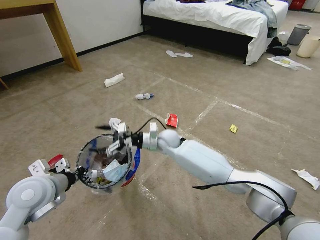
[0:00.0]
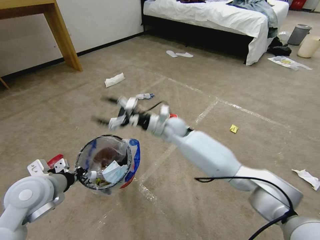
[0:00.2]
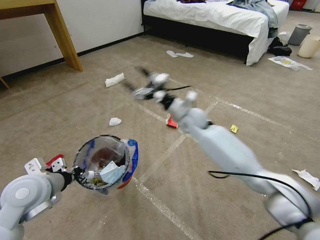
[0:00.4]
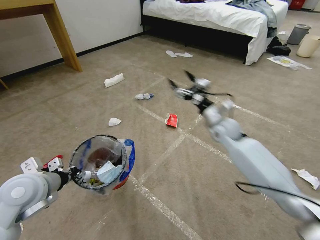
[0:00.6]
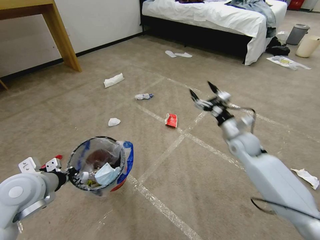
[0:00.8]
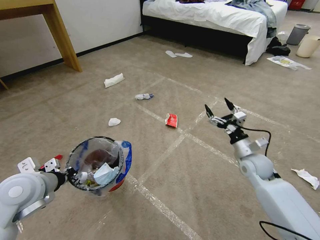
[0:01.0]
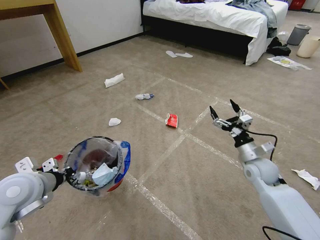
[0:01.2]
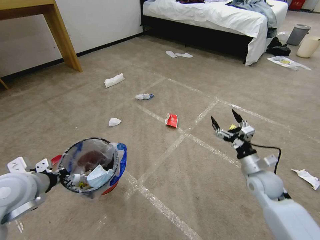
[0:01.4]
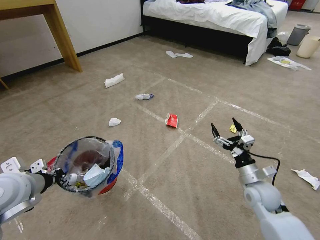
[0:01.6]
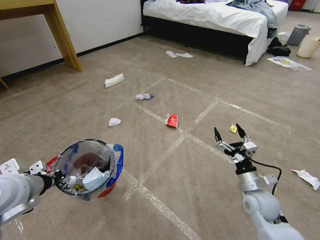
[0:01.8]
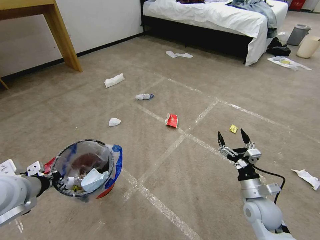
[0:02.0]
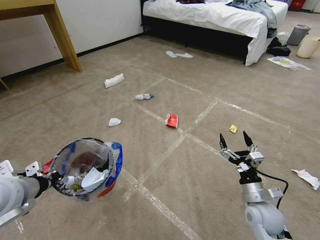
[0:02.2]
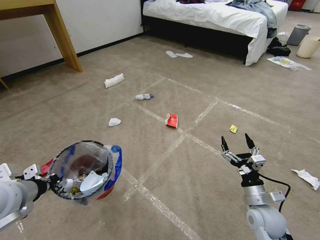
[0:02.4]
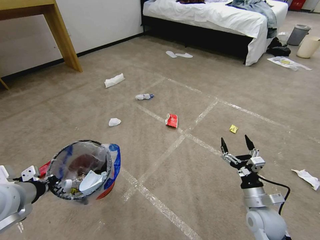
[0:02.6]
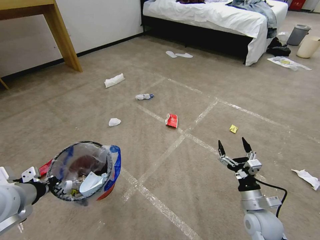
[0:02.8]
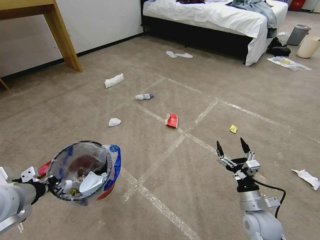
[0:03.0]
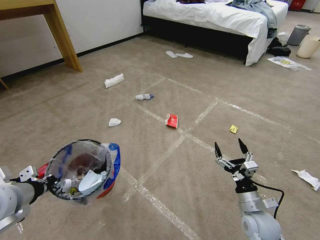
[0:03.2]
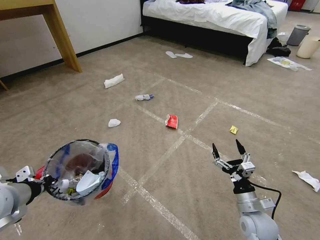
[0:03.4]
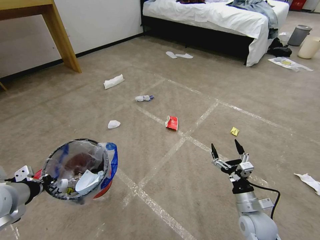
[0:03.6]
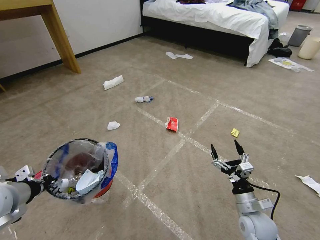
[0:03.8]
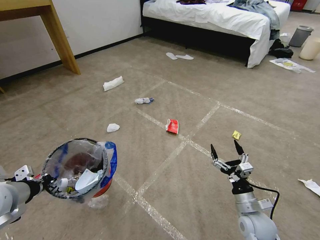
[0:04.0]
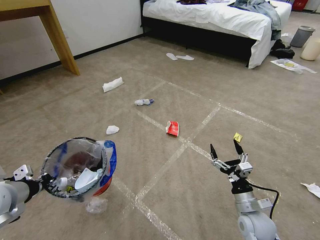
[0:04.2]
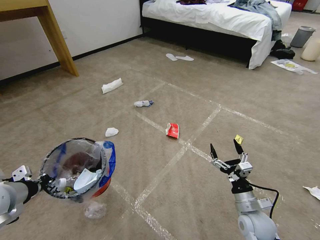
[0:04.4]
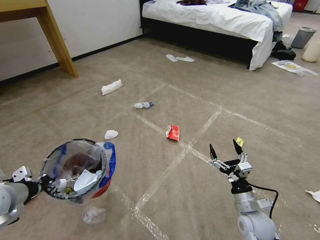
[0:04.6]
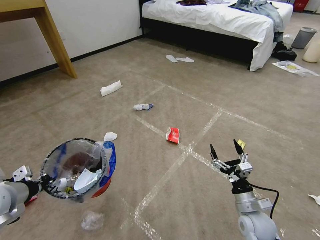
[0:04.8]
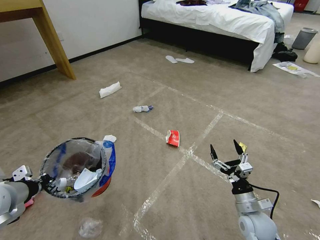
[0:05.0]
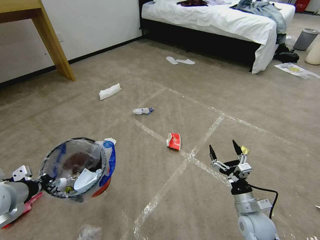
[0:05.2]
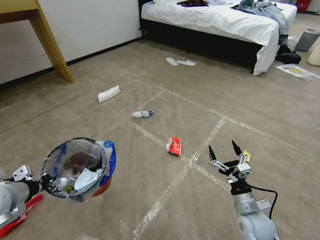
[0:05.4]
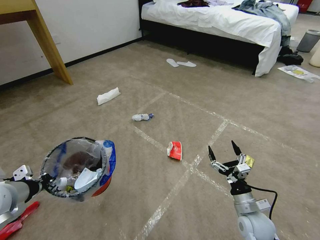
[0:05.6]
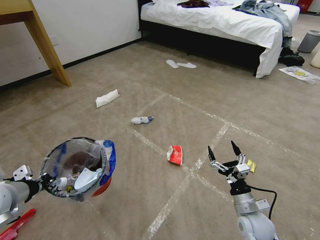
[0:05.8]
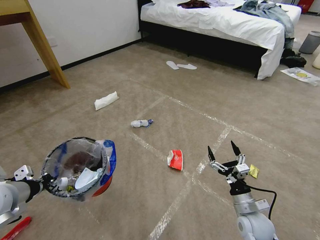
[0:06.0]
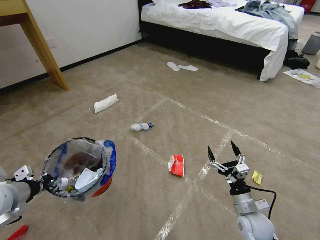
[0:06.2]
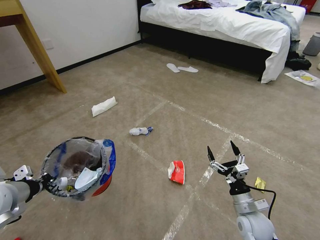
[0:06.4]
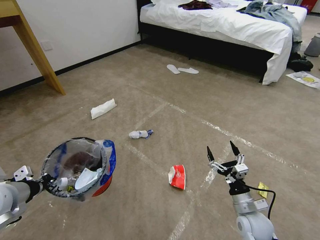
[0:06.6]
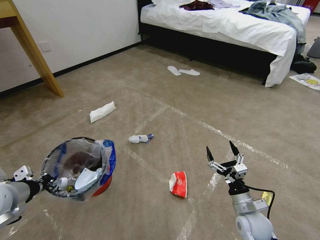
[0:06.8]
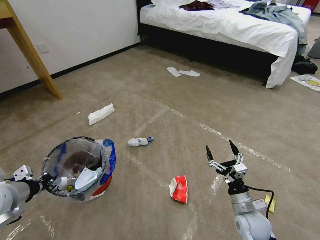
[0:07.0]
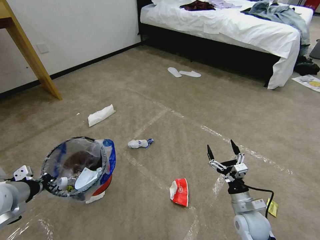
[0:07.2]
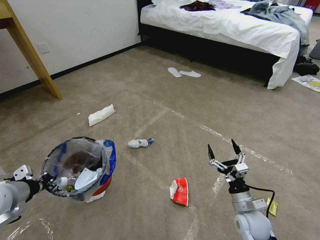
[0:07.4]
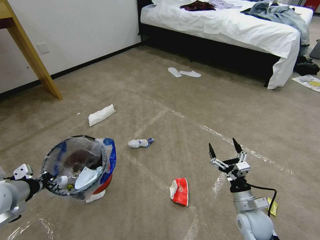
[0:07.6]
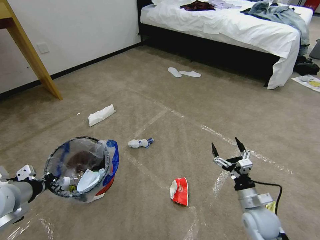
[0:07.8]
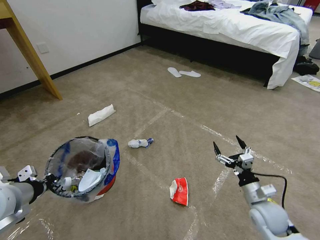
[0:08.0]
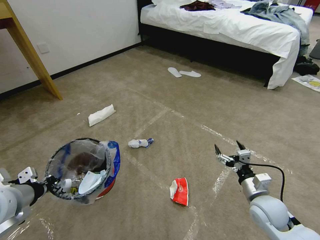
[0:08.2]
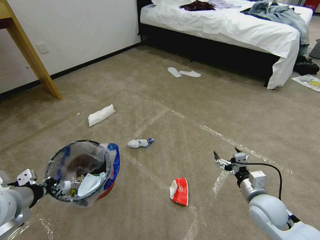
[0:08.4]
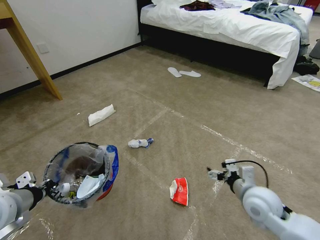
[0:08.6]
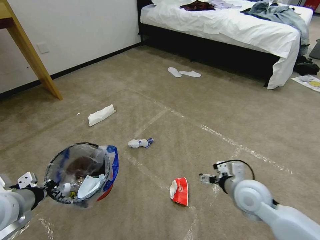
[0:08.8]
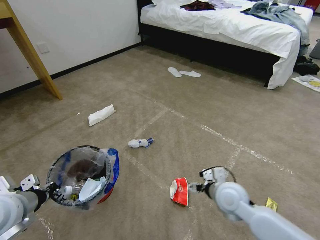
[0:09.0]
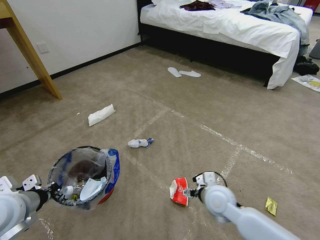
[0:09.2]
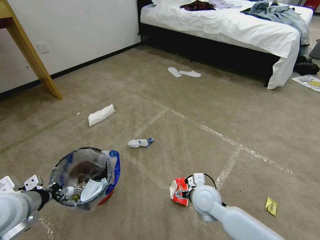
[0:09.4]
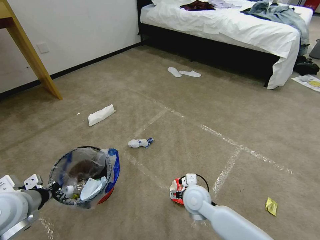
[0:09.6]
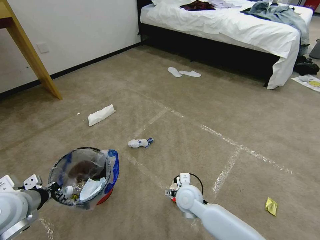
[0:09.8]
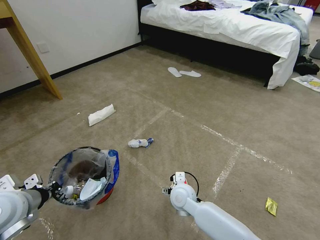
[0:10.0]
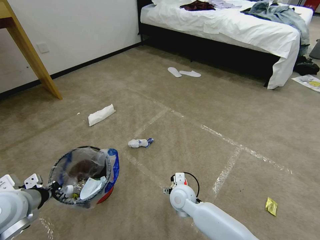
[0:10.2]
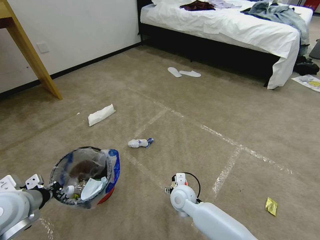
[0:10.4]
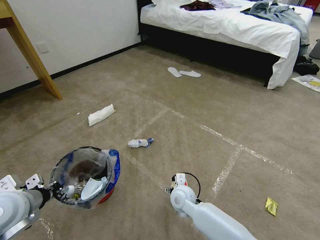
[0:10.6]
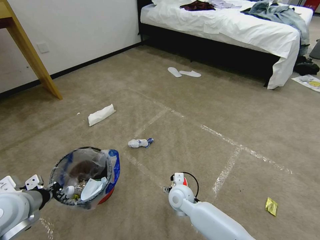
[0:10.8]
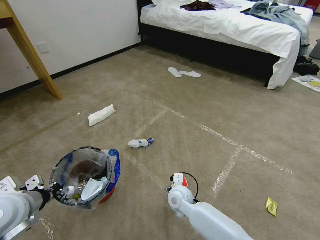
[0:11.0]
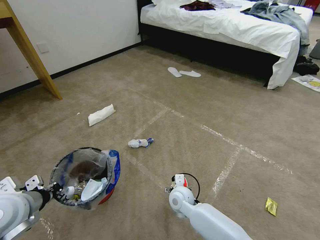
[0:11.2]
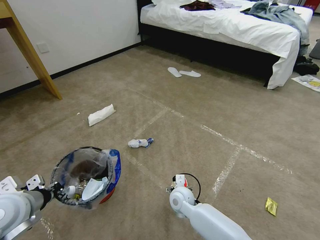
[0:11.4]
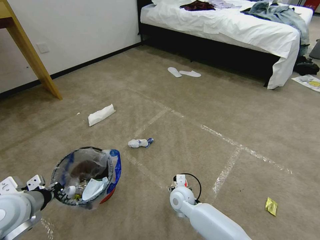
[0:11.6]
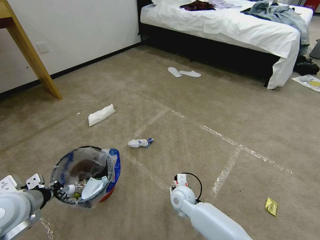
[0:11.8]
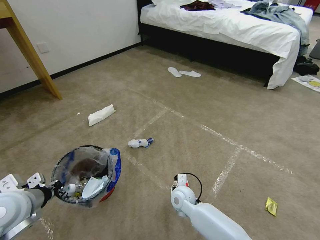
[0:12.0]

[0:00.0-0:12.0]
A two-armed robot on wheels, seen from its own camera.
Task of the whole recording: Pick up the trash bin and place the garbage on the floor into it.
0:00.0 to 0:01.6: The right gripper heads to the right and backward, covering roughly 35 cm. The left gripper shifts by roughly 5 cm.
0:01.6 to 0:03.0: The right gripper goes some 10 cm backward.
0:03.0 to 0:04.4: The grippers move only a little.
0:07.6 to 0:09.0: The right gripper goes approximately 10 cm upward, to the left and forward.
0:09.0 to 0:10.4: The right gripper goes approximately 20 cm to the left and downward.
0:10.4 to 0:12.0: The right gripper closes up.

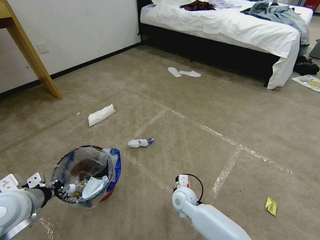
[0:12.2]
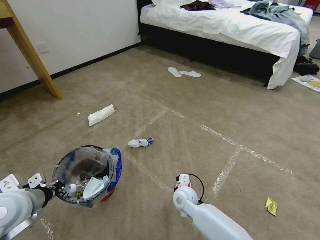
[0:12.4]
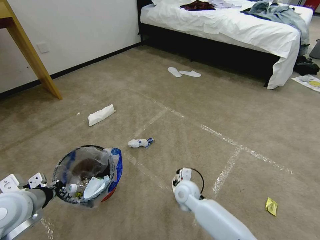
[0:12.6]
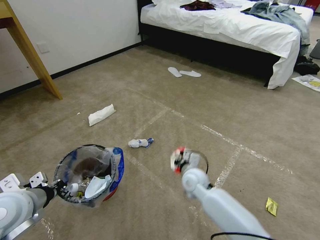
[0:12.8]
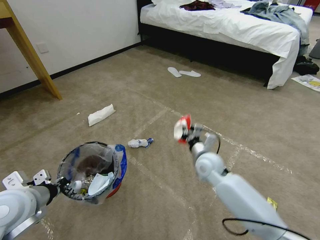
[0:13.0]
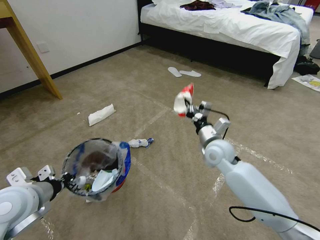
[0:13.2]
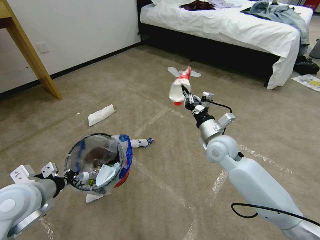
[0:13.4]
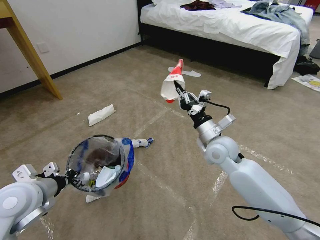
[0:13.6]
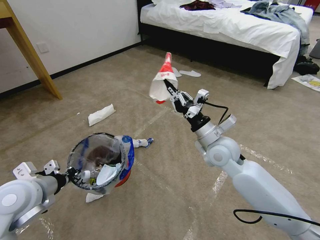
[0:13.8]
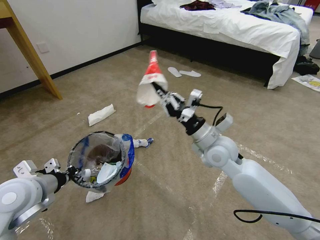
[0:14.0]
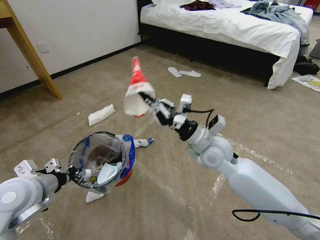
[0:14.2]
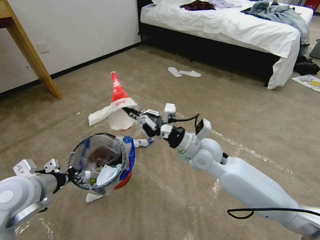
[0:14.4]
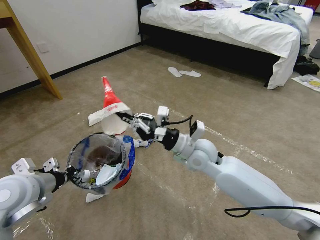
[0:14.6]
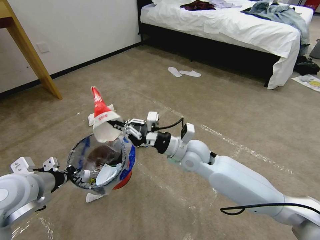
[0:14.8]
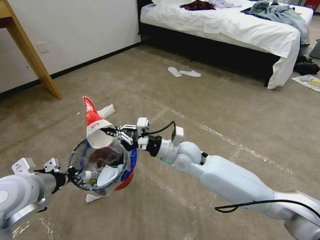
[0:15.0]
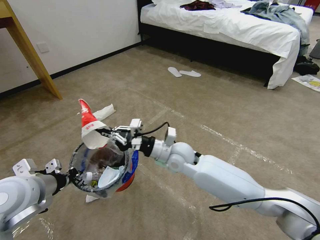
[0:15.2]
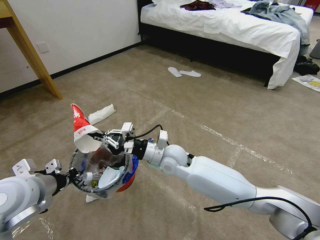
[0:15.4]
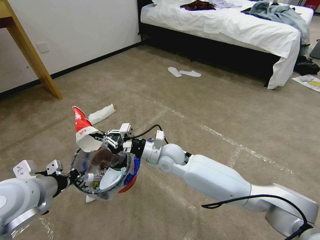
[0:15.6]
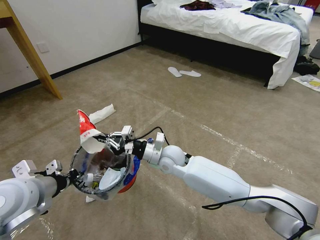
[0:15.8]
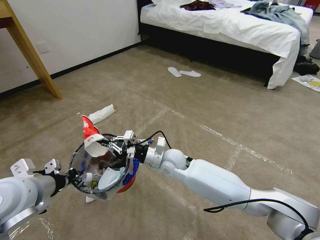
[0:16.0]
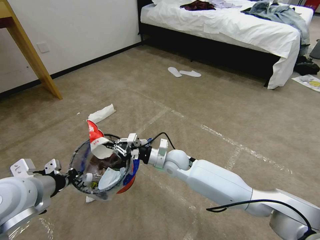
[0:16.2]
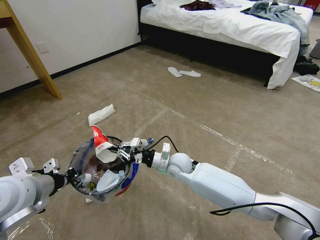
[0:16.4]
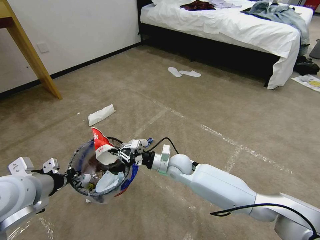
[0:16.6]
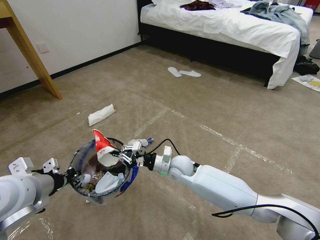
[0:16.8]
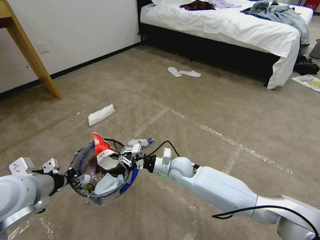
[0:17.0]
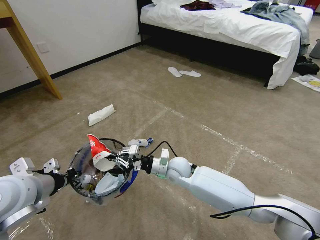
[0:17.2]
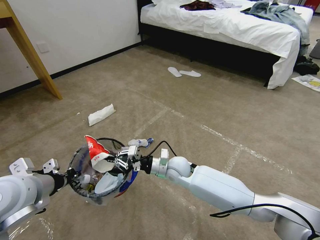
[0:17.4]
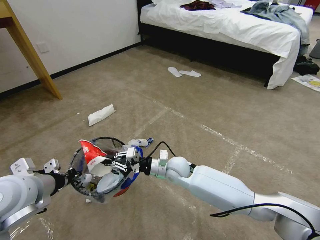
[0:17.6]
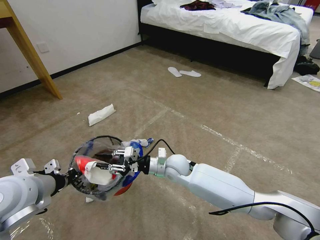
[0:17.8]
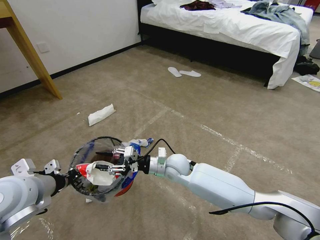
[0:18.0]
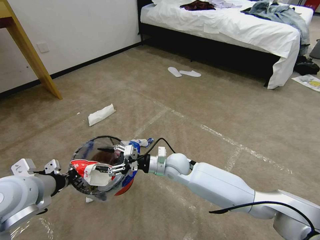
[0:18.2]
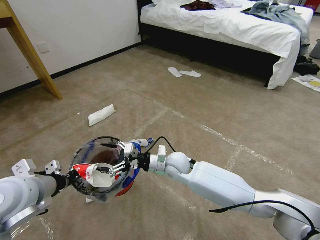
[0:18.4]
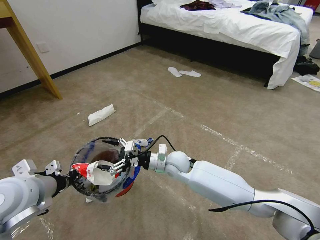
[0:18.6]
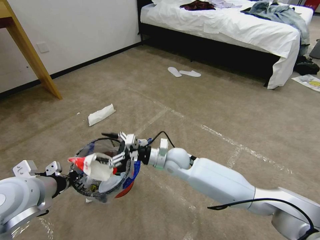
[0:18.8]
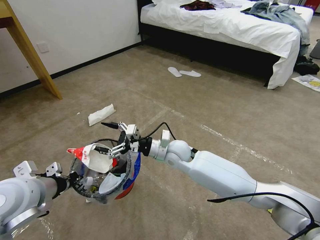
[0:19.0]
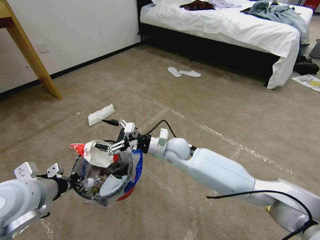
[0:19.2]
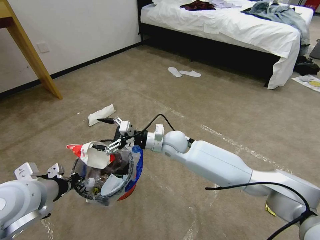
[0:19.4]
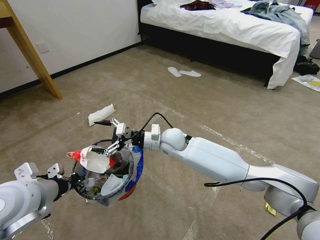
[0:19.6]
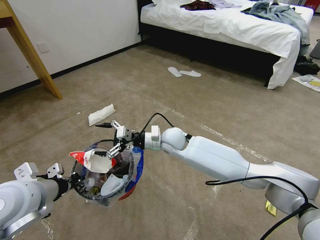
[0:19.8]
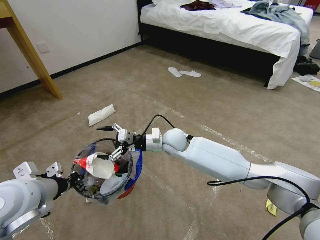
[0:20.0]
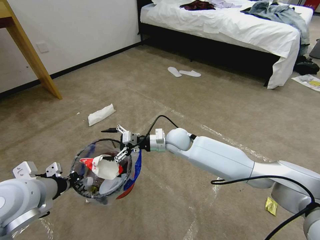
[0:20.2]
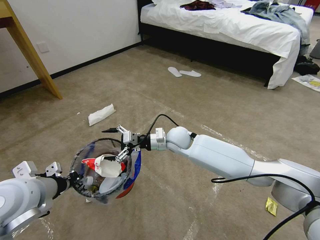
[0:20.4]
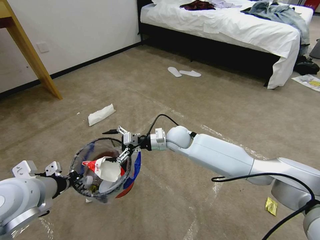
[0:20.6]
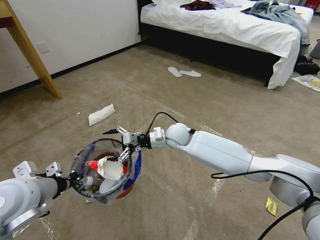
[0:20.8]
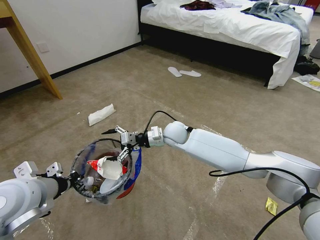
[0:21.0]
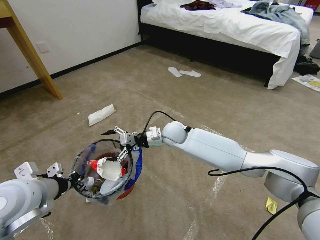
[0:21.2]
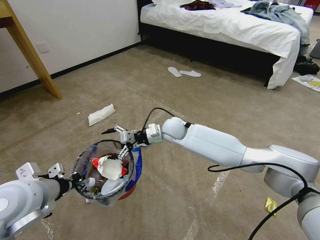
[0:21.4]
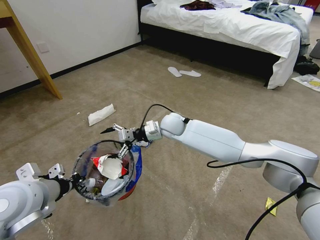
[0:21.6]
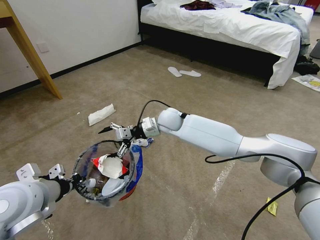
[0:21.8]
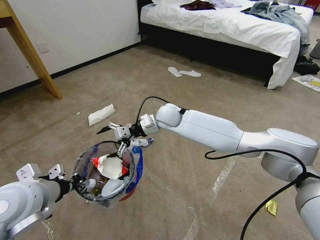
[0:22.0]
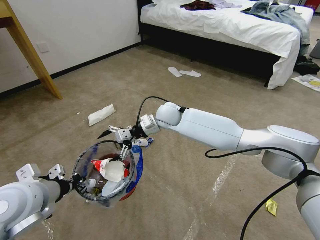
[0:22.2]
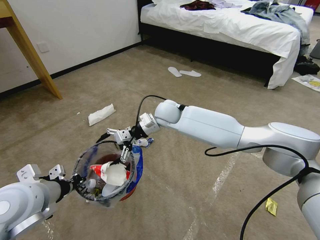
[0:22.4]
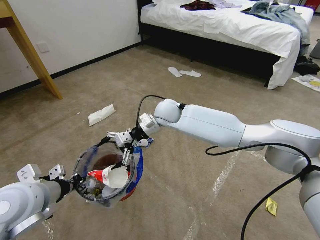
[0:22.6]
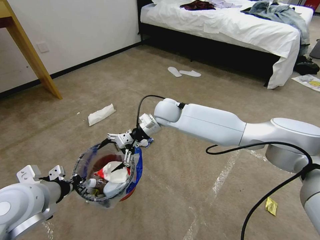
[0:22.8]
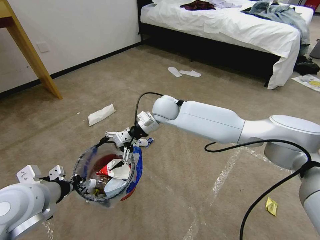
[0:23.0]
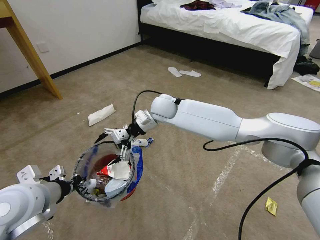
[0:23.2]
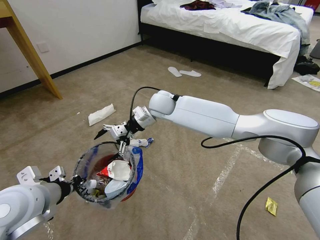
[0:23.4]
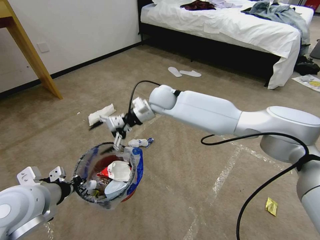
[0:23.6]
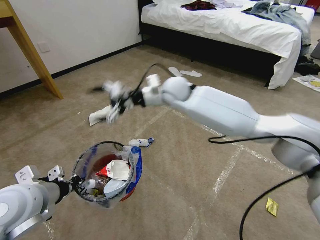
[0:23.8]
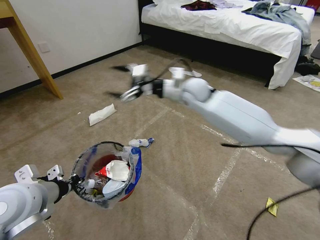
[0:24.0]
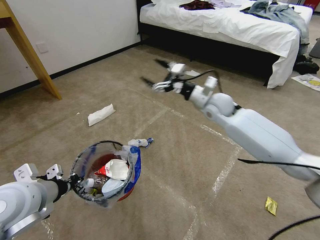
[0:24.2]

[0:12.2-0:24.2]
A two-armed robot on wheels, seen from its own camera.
Task of the whole recording: Pick up the trash bin and place the garbage on the floor into it.
0:12.2 to 0:13.8: The right gripper goes about 25 cm upward and to the right.
0:13.8 to 0:15.2: The right gripper is displaced to the left by about 15 cm.
0:15.2 to 0:16.6: The right gripper moves downward, approximately 10 cm.
0:16.6 to 0:18.2: The right gripper opens.
0:18.2 to 0:19.8: The right gripper shifts about 10 cm upward and forward.
0:19.8 to 0:21.2: There are only small adjustments of the grippers.
0:21.2 to 0:22.6: The right gripper shifts some 10 cm upward.
0:22.6 to 0:24.2: The right gripper travels to the right by some 20 cm.
